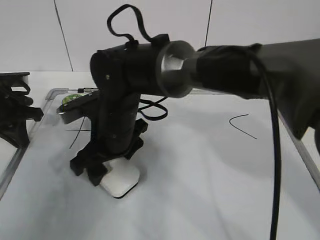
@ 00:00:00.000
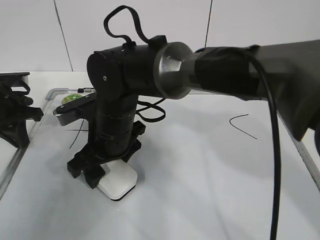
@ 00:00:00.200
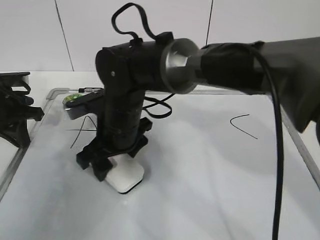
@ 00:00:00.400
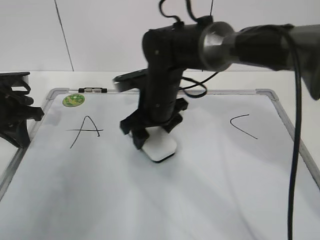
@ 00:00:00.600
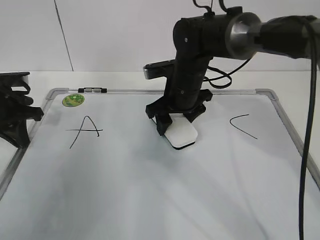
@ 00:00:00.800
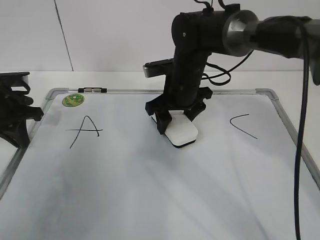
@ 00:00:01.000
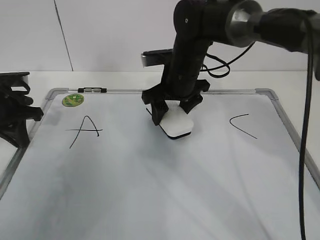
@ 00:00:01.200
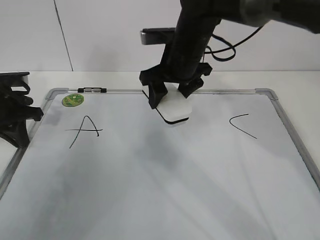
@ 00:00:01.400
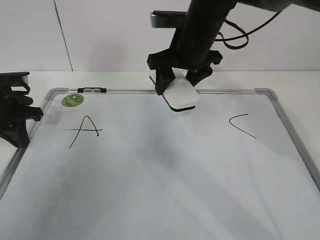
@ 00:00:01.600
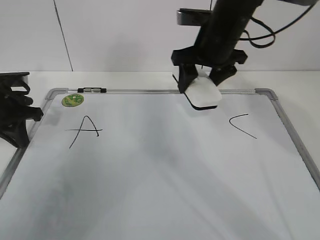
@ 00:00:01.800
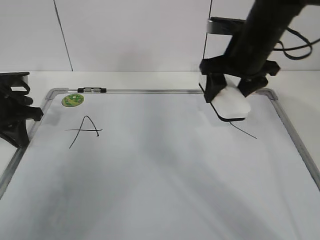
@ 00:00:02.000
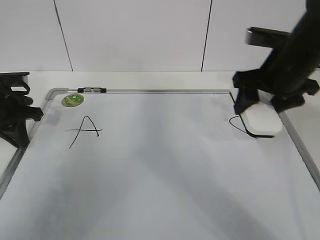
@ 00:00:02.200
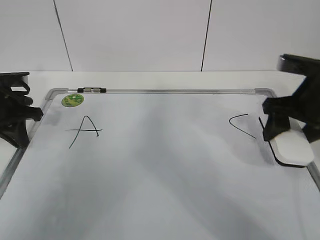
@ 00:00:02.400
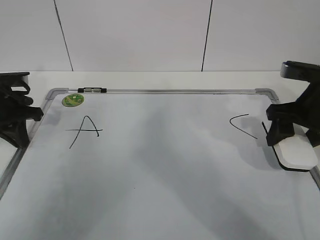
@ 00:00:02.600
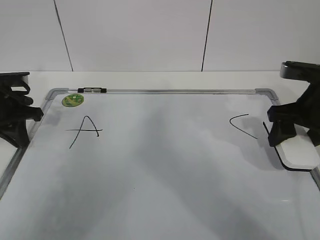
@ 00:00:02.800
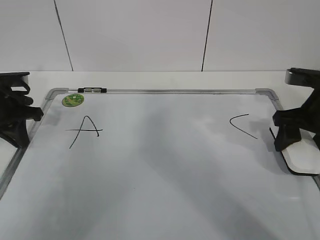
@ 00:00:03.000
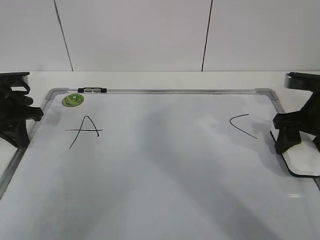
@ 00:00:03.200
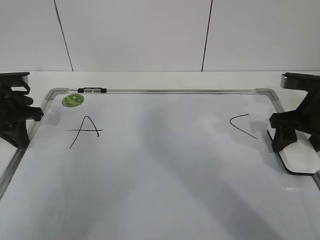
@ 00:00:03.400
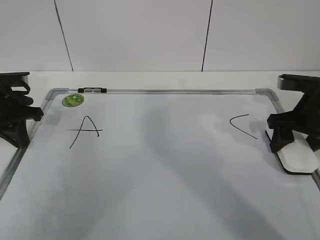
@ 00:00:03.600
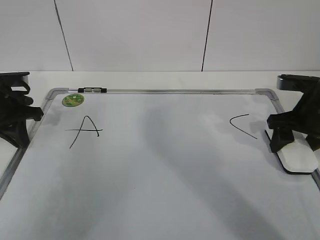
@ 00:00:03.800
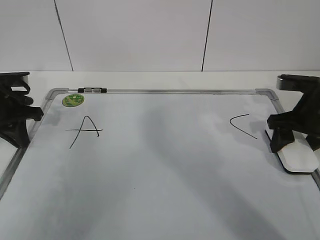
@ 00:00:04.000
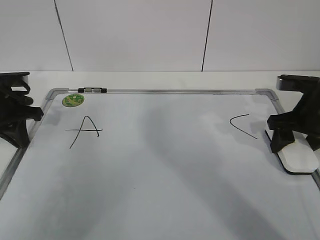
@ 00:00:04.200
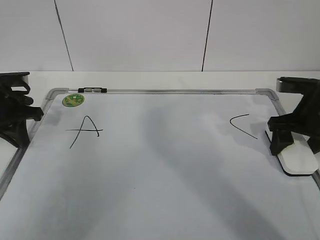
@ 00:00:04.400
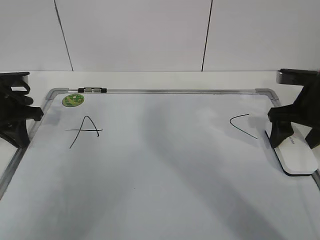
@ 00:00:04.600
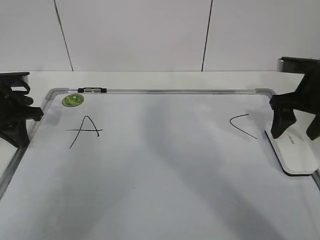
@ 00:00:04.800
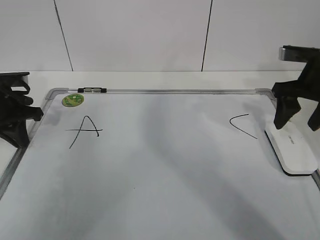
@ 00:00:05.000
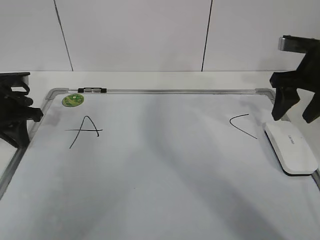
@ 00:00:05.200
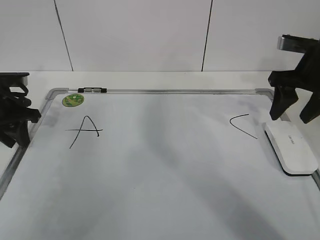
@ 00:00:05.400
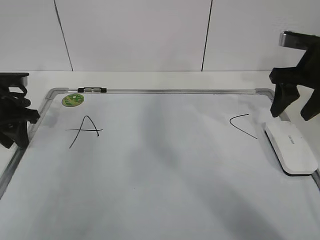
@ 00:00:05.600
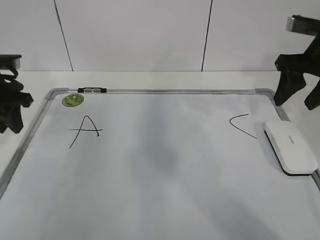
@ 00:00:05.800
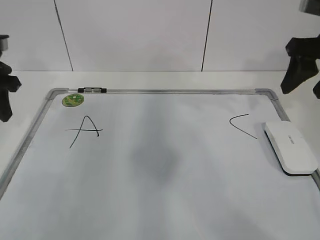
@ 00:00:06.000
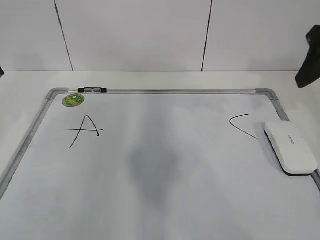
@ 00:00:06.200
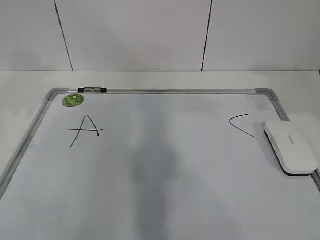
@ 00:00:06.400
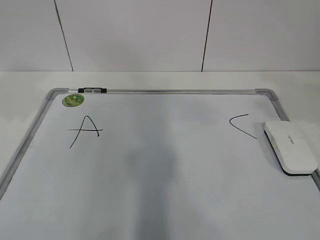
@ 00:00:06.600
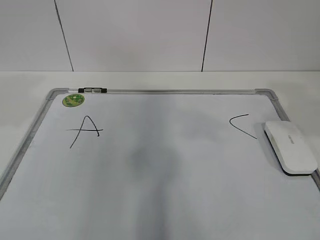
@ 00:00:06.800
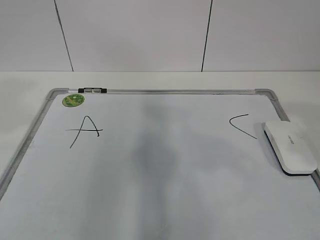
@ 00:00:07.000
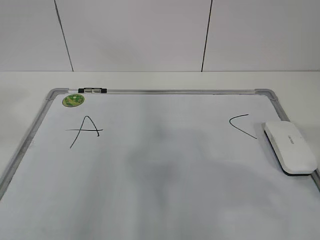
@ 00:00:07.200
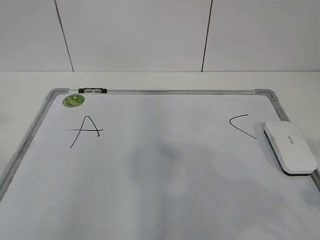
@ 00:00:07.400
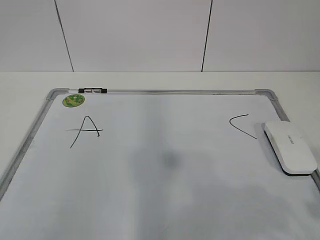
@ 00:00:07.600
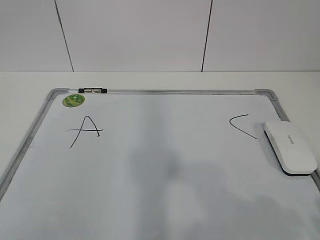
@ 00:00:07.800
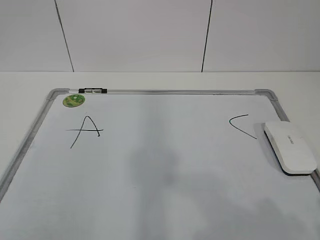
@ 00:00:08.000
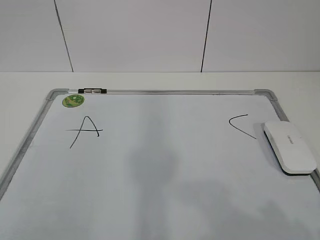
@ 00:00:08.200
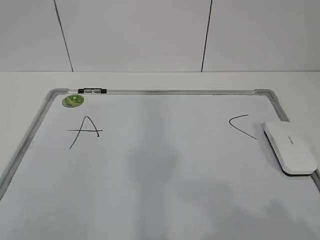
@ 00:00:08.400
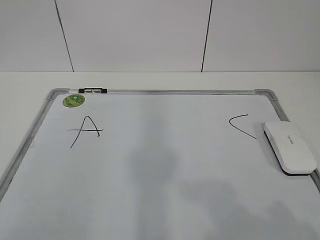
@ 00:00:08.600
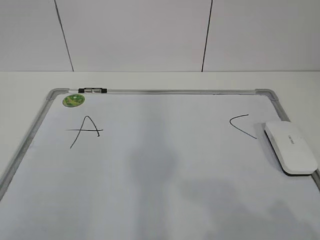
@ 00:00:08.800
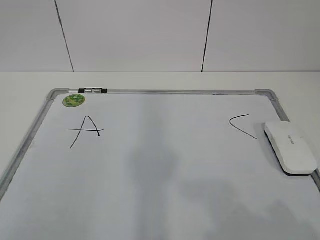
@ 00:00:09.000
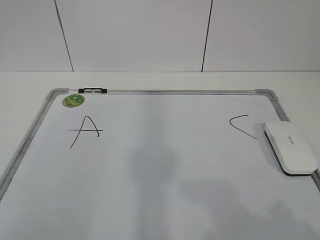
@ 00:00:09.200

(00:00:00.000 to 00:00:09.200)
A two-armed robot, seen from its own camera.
Task of the whole recording: pick up the eraser on the blackboard and erase the letter "B".
00:00:00.000 - 00:00:01.600: The right gripper travels to the right, forward and upward by roughly 20 cm.
00:00:01.600 - 00:00:03.000: The right gripper heads to the right and backward, covering roughly 20 cm.
00:00:03.000 - 00:00:04.600: The right gripper opens its fingers.
00:00:04.600 - 00:00:06.200: The grippers both shift upward by some 15 cm. The right gripper closes up. Meanwhile the left gripper opens its fingers.
00:00:06.200 - 00:00:07.600: Both grippers travel together backward, roughly 30 cm.
